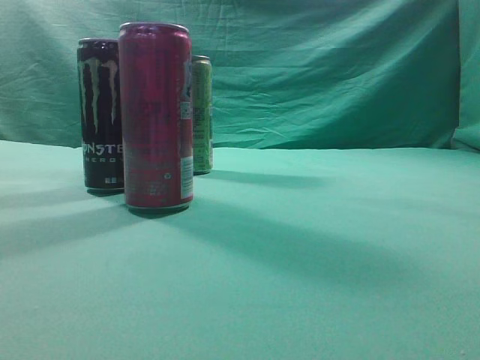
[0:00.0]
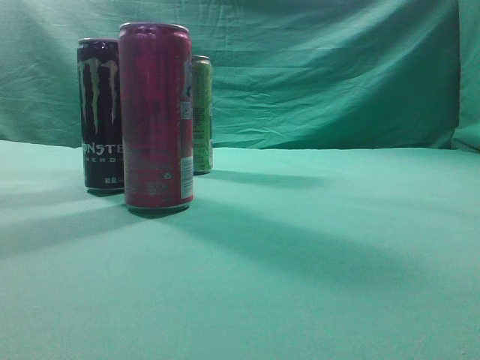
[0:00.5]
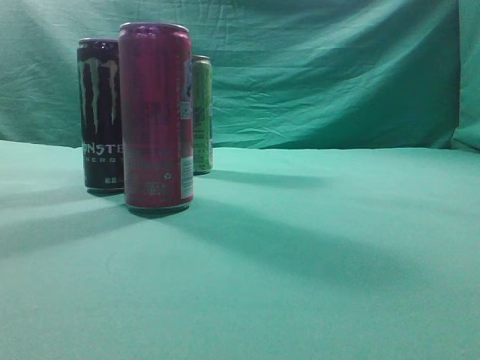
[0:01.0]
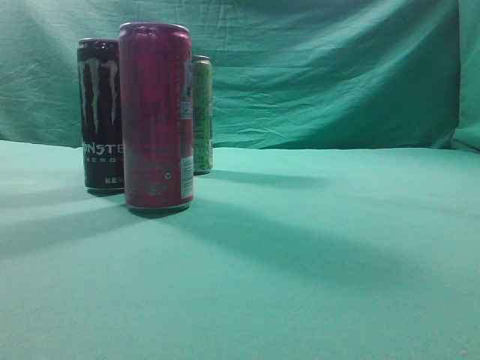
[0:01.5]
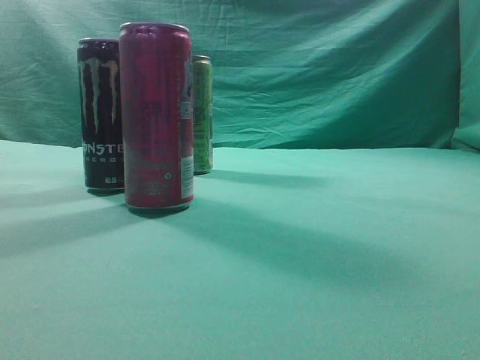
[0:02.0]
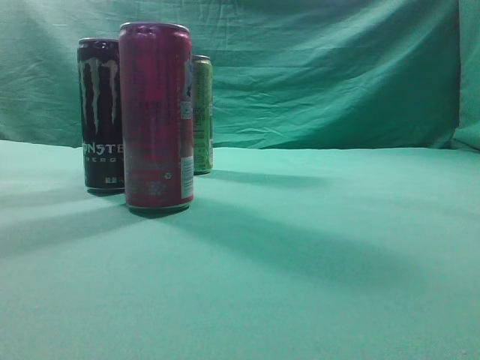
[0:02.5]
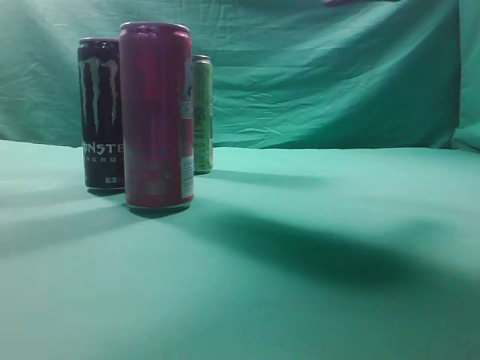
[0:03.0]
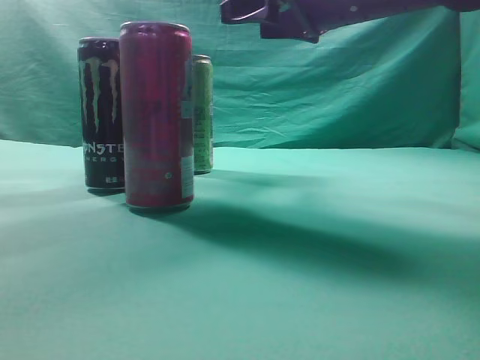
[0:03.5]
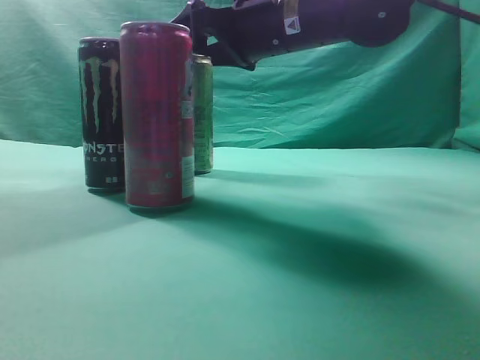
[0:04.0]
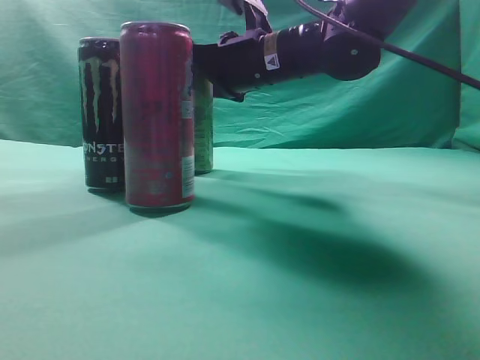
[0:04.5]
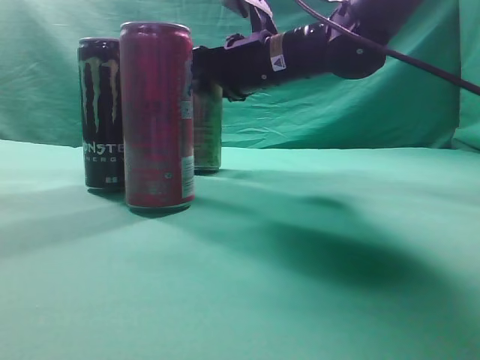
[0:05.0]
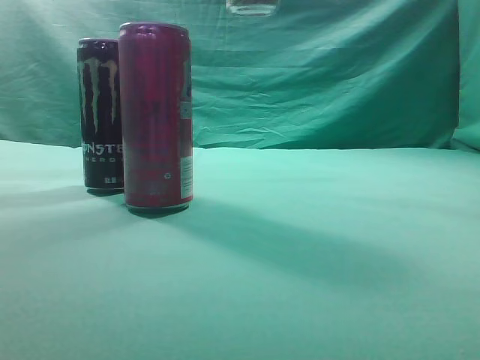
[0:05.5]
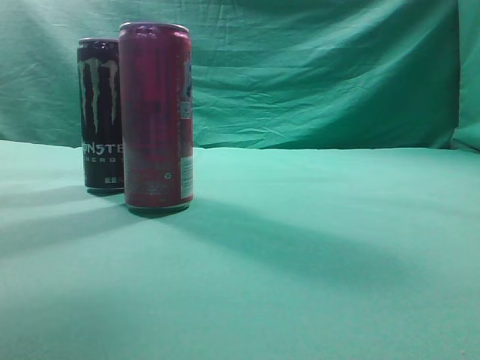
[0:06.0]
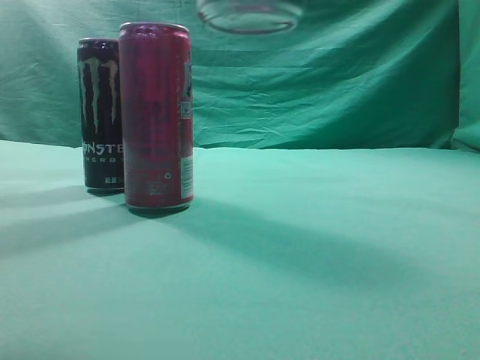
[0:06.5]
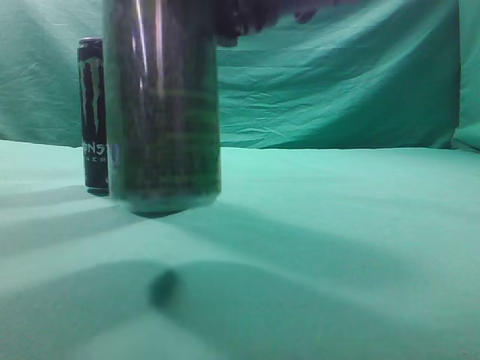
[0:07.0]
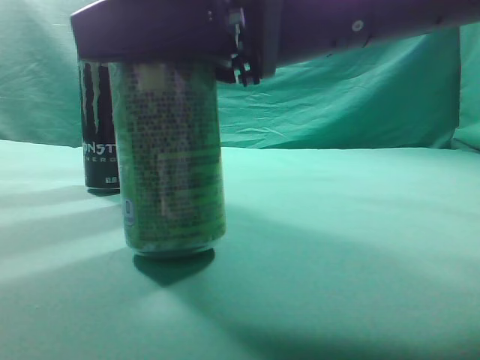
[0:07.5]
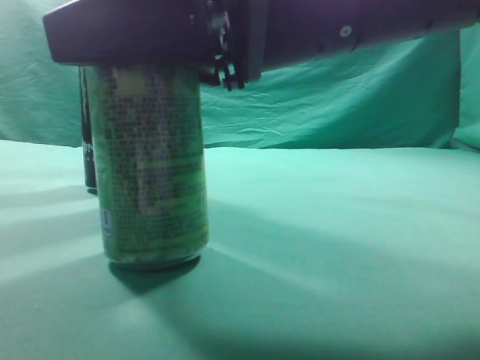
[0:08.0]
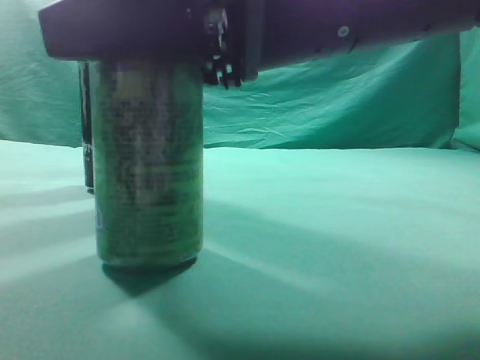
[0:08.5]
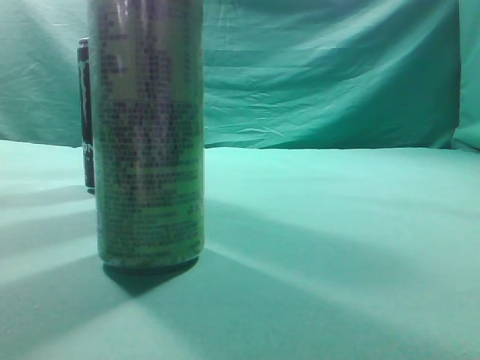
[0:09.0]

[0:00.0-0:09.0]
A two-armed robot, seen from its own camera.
Task of the whole recording: move one drink among three beverages.
Step, 0:00.0 to 0:05.0: Grasp the beverage bottle placed at the back of the desk.
0:02.0 to 0:04.5: The right gripper travels forward and to the left by about 50 cm, and opens.
0:04.5 to 0:07.0: The right gripper goes roughly 25 cm backward.
